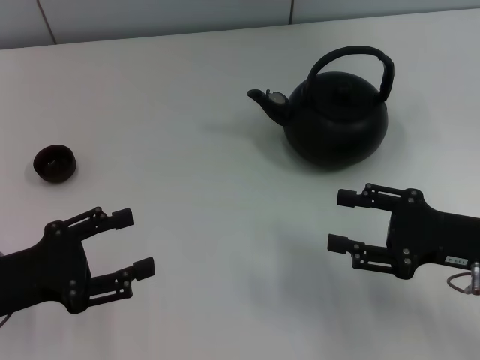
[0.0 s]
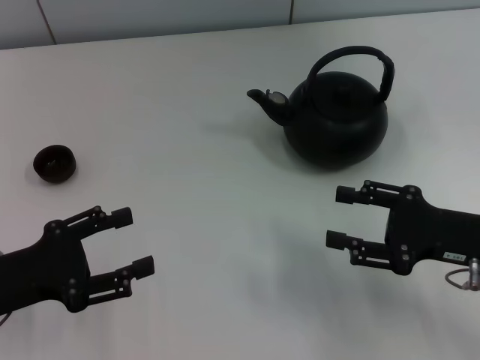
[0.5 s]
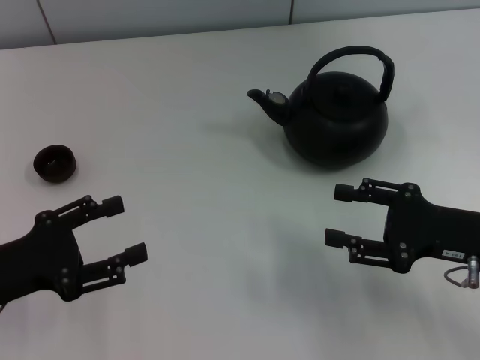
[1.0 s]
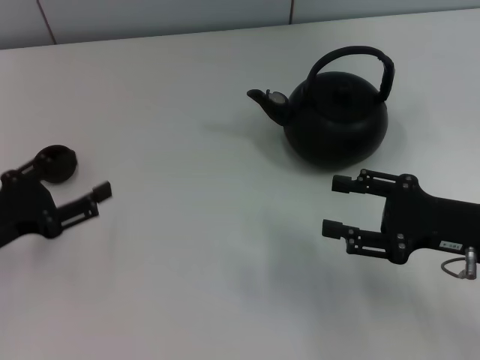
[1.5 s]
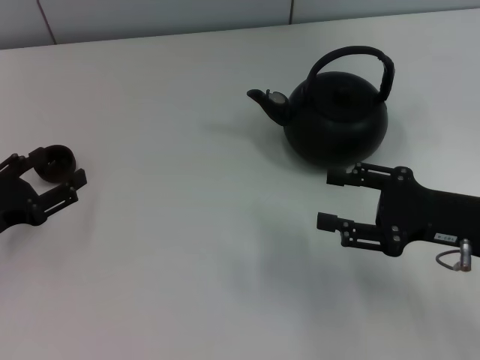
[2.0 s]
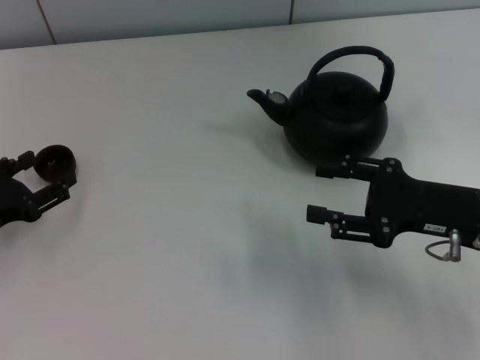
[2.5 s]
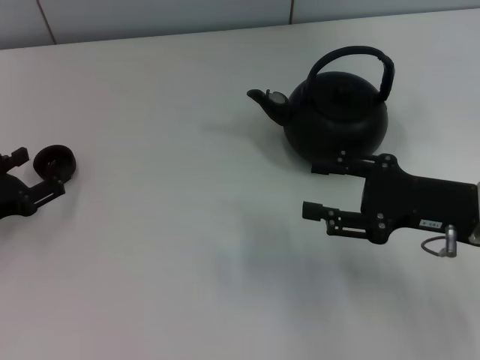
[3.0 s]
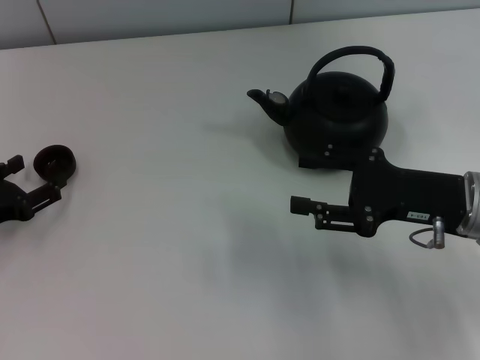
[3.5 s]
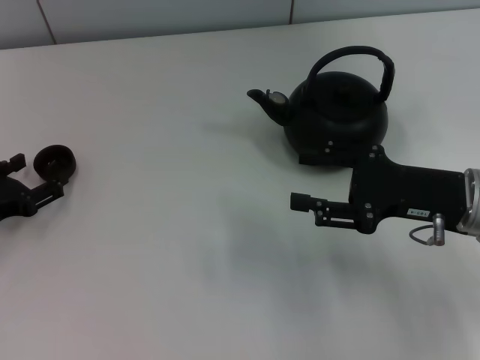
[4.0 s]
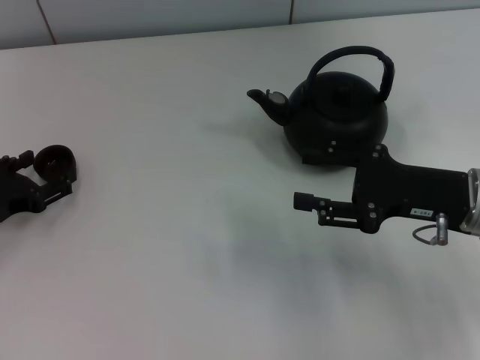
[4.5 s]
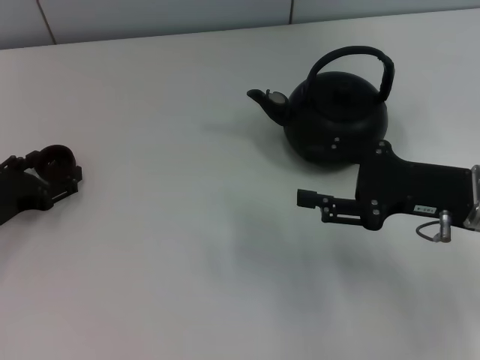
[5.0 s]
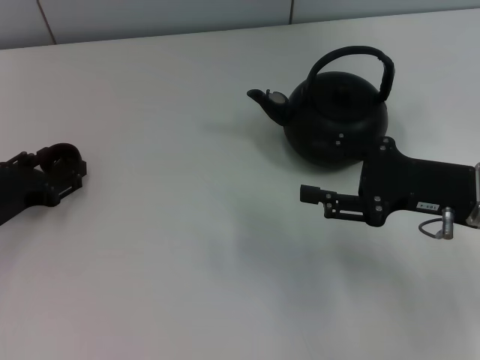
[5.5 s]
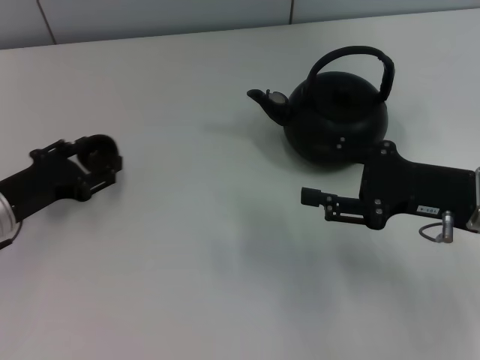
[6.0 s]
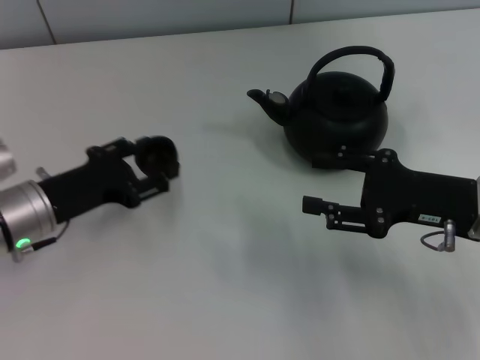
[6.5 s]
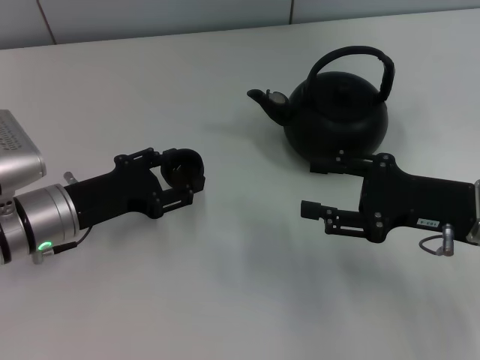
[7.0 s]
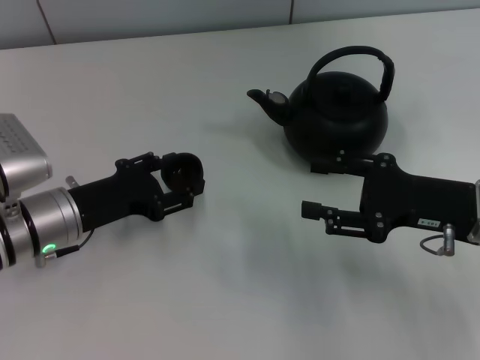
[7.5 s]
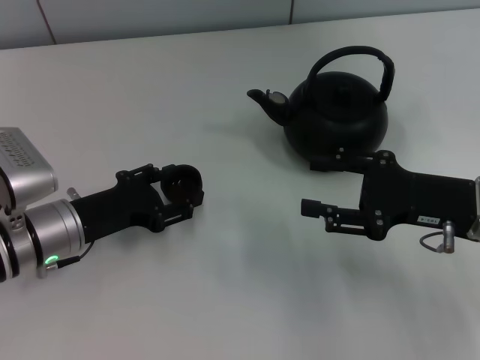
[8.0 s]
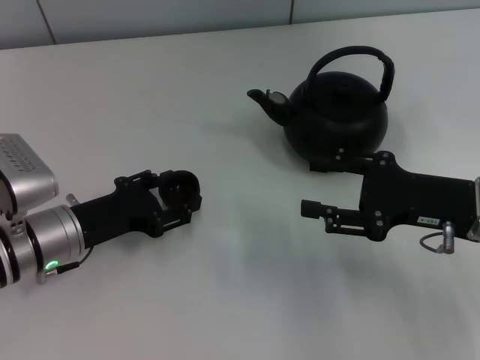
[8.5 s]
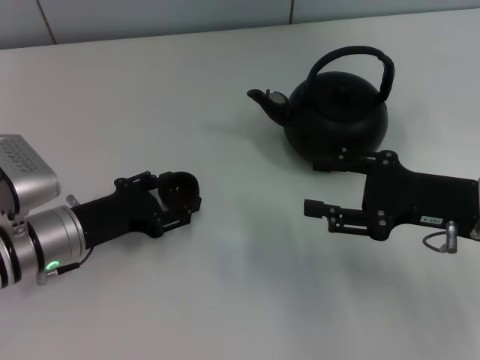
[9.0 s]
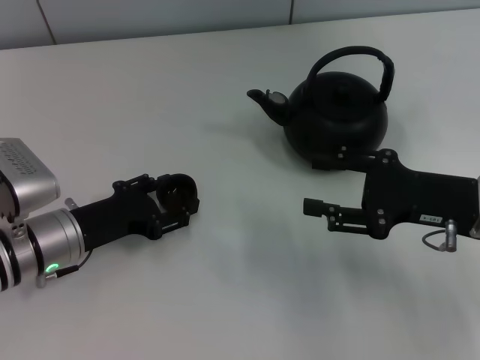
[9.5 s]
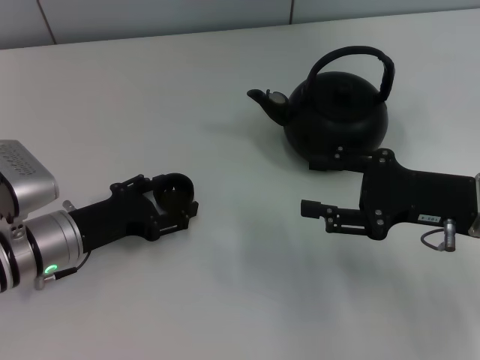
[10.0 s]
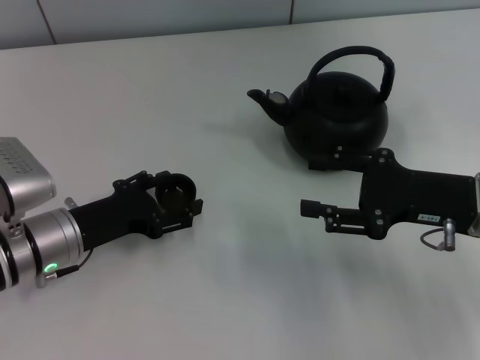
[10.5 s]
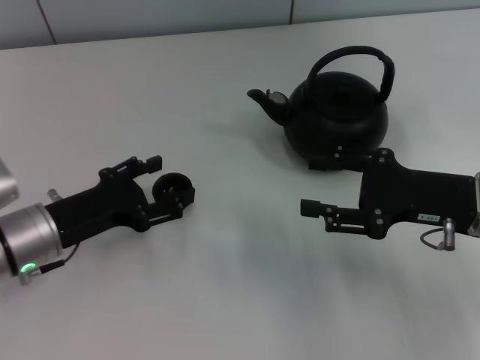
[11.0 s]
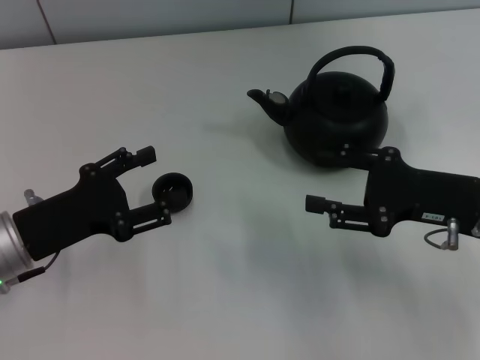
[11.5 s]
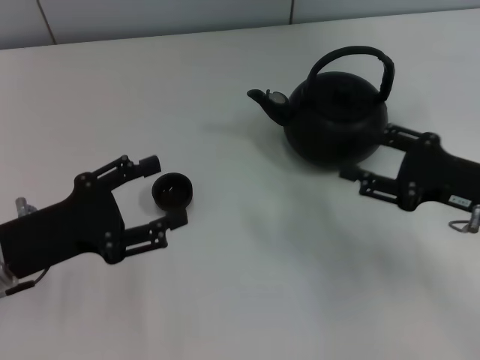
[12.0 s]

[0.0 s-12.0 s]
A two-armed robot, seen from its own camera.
Task of the whole recording: Grasp the handle of the teapot with one hand and pour tea into the teacup.
Step, 0.0 to 5.5 s: Pick up the teacup with the left gripper.
Step, 6.0 to 11.0 s: Place the teacup in the center of view with the left gripper.
0.0 to 2.0 s: The left gripper shifts by approximately 5 cm.
2.0 to 4.0 s: The grippers move only a little.
4.0 to 6.0 s: The left gripper changes place by approximately 5 cm, and closes its fingers.
6.0 to 8.0 s: The left gripper travels to the right by approximately 5 cm.
8.0 to 10.0 s: The left gripper opens.
10.0 to 12.0 s: The left gripper heads upward, covering some 5 cm, and opens up.

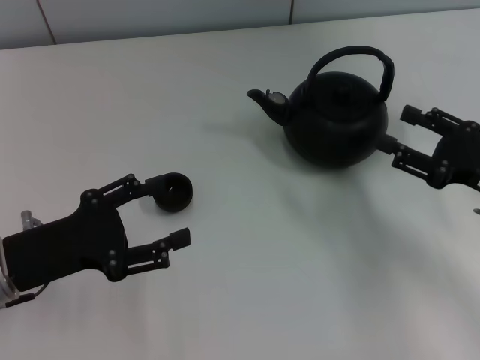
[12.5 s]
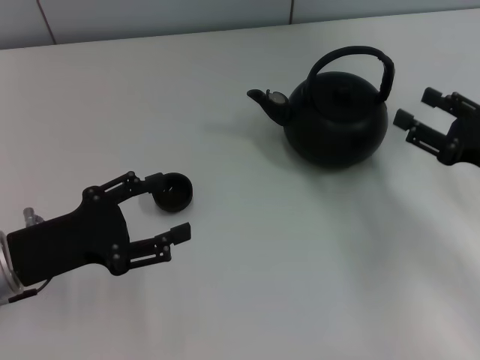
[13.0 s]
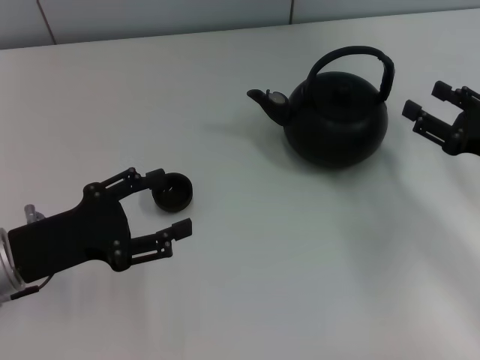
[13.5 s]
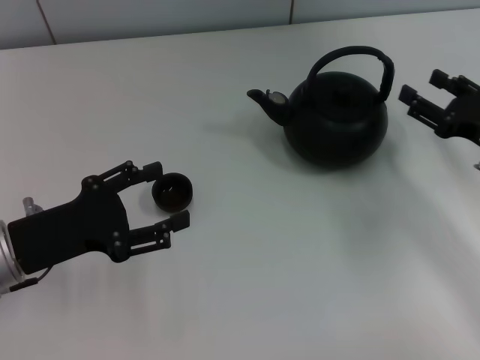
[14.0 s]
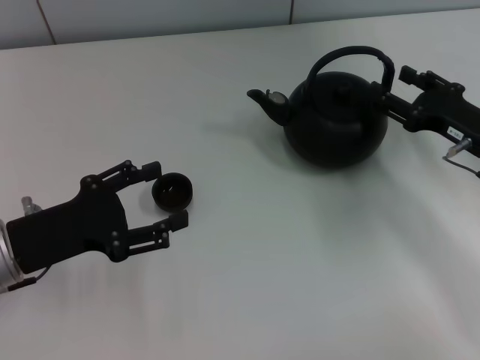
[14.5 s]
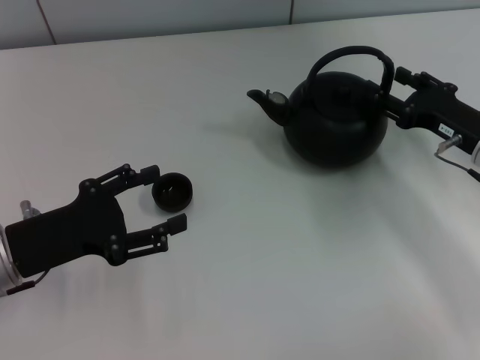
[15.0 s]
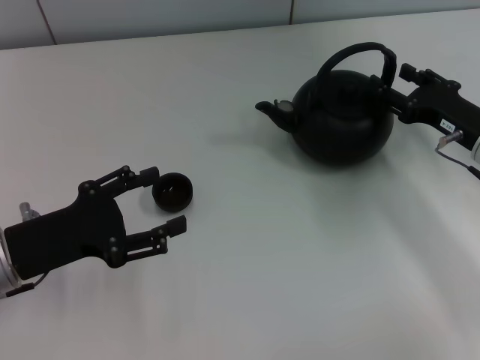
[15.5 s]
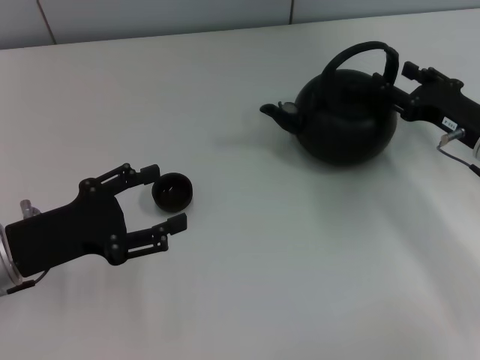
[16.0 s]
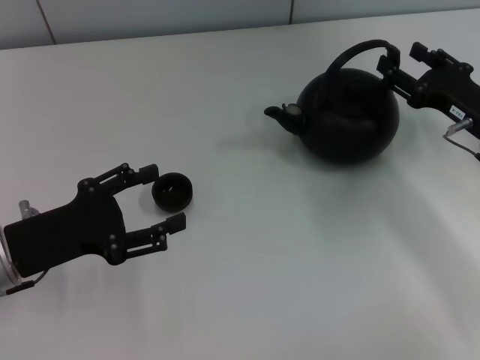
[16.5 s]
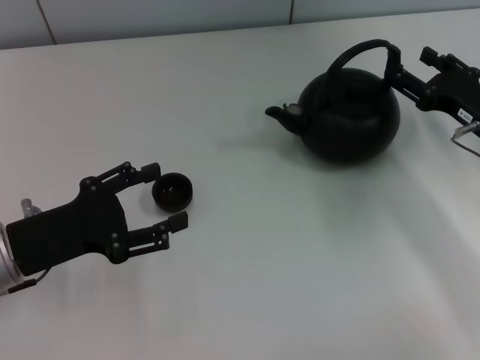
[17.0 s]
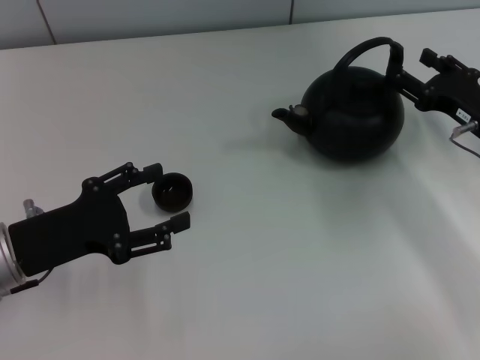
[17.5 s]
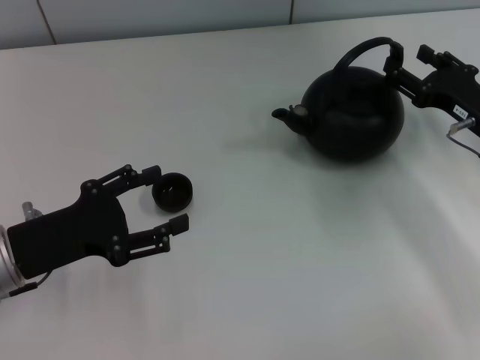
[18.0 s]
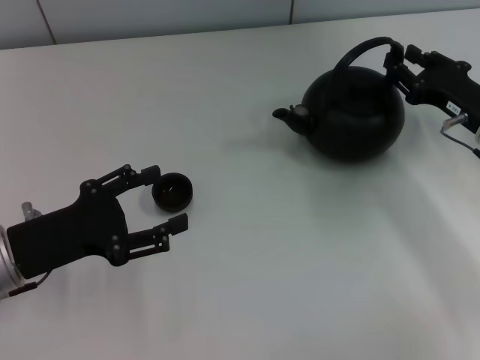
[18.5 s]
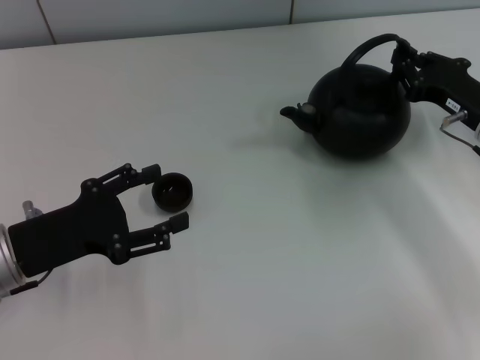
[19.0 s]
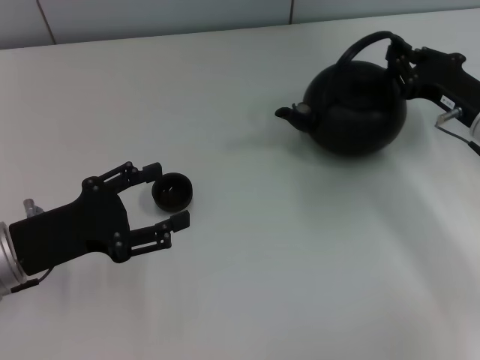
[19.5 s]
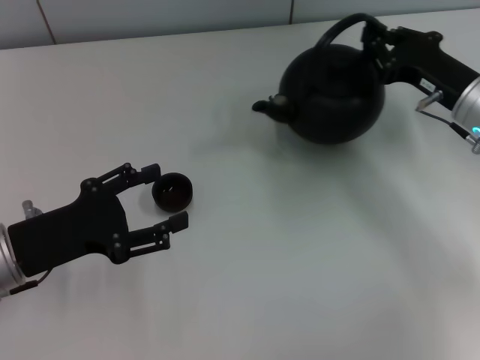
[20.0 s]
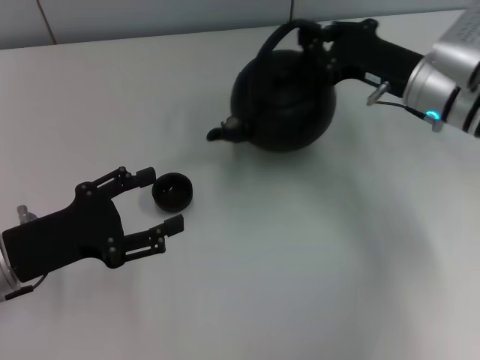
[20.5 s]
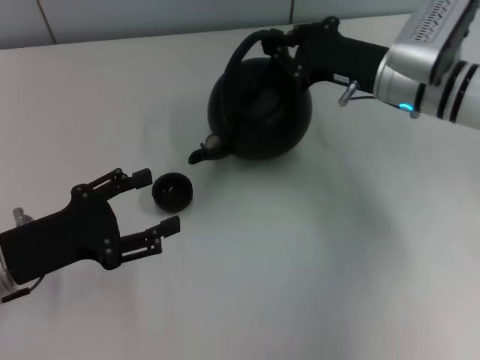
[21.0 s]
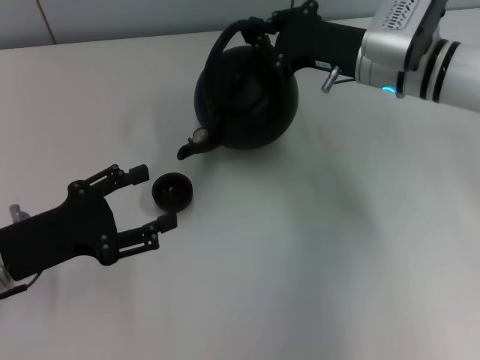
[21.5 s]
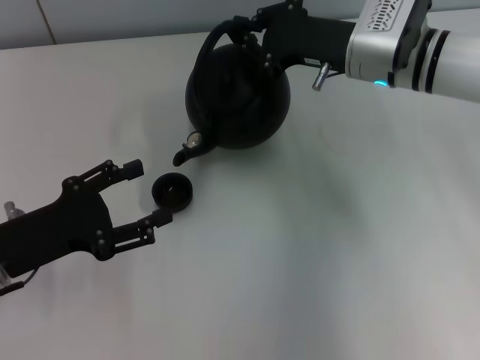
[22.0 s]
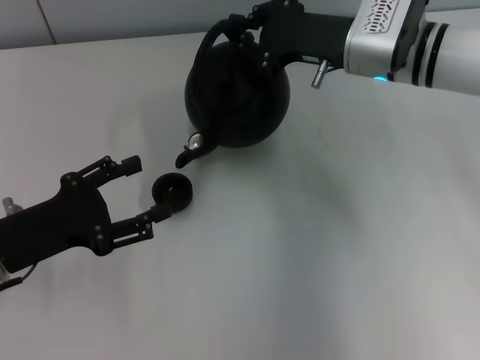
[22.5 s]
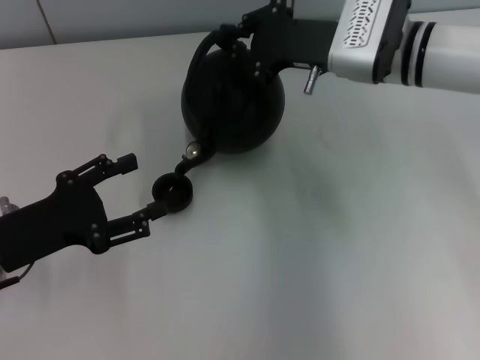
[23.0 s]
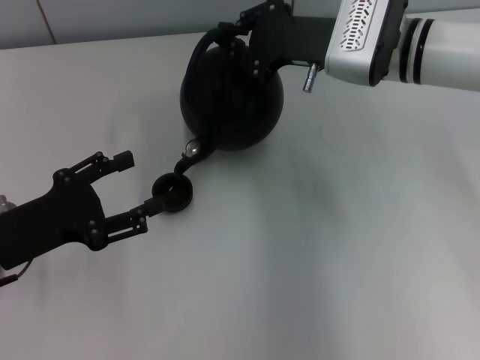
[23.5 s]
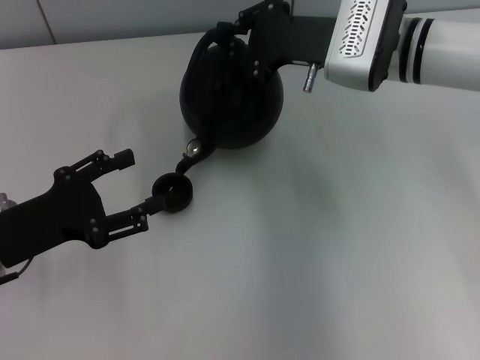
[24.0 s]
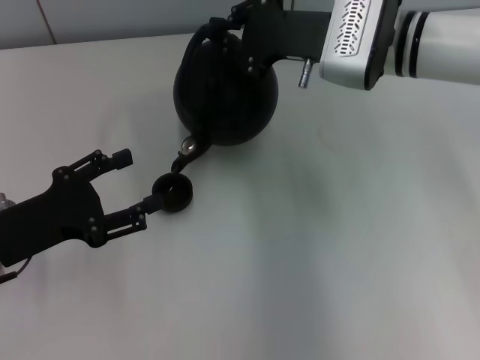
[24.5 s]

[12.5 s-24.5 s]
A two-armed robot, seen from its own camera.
Task of the whole recording: Grasp the handle of the teapot with one hand and pour tea into the teacup.
Step, 12.5 to 19.5 s: Pick up the teapot with the right gripper.
12.5 to 14.5 s: The right gripper shifts approximately 5 cm forward.
14.5 to 16.5 s: There are only small adjustments of the grippers.
16.5 to 18.5 s: Both grippers stay about where they are.
18.5 to 20.5 s: The right gripper heads to the left, covering some 5 cm, and closes its fingers.
20.5 to 22.5 s: The right gripper is displaced to the left by about 5 cm.
22.5 to 24.5 s: There are only small adjustments of the grippers.

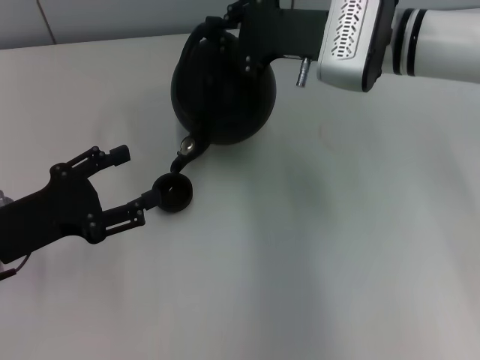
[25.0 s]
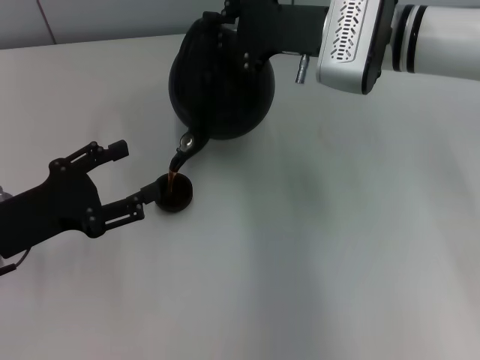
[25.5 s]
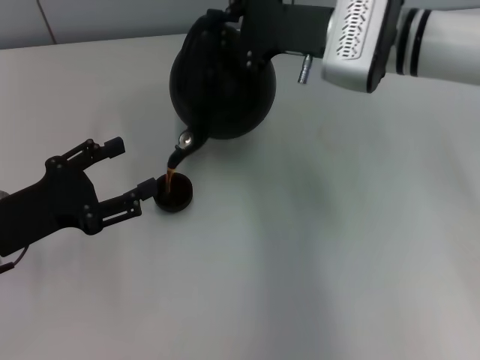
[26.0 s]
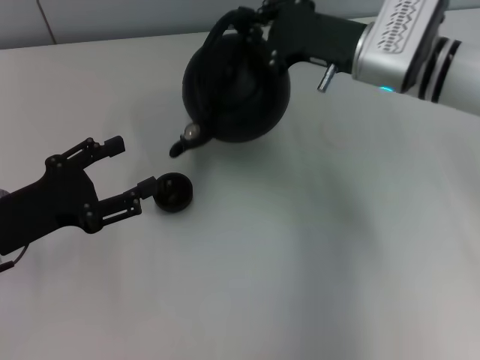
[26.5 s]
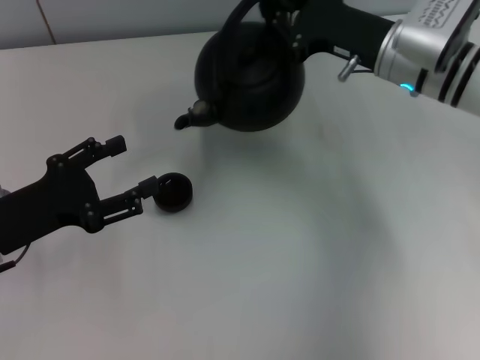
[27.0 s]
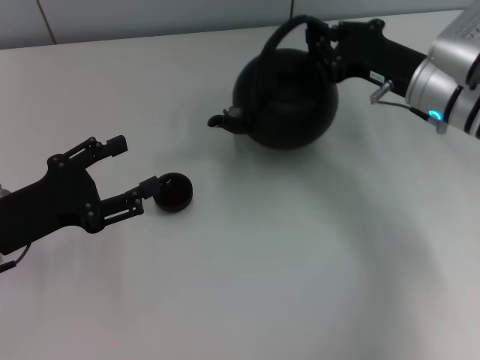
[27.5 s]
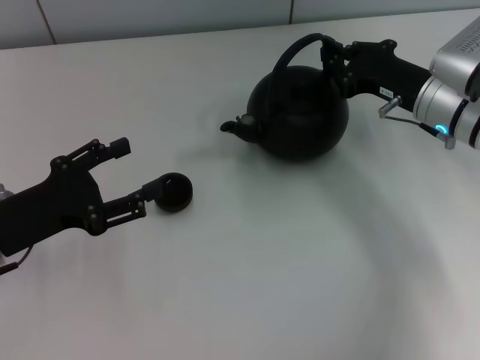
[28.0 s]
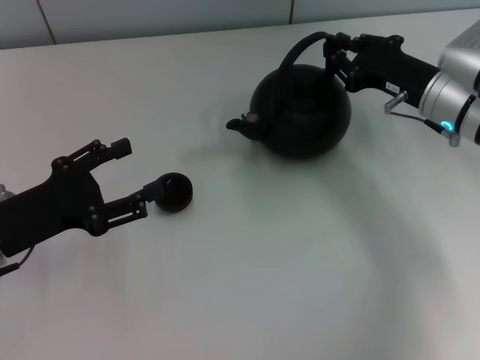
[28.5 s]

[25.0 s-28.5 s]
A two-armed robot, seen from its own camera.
Task of the whole recording: Grasp the handle of the teapot with one hand and pour tea into the teacup.
25.0 to 27.0 s: The right gripper heads to the right, covering about 5 cm.
27.0 to 28.5 s: The right gripper shifts by some 5 cm.
